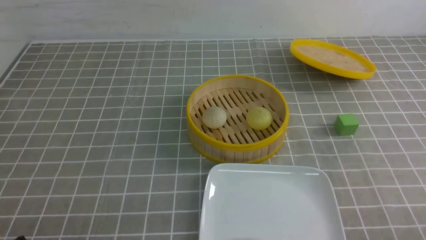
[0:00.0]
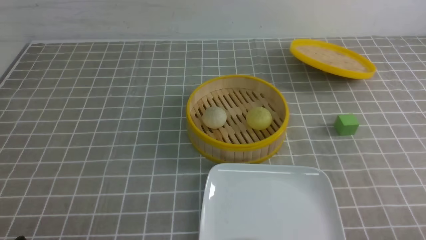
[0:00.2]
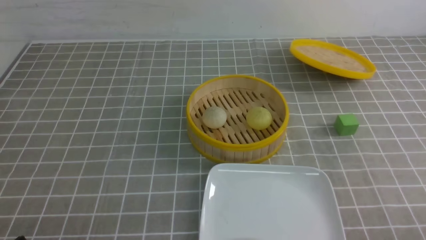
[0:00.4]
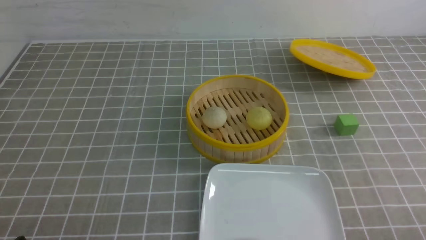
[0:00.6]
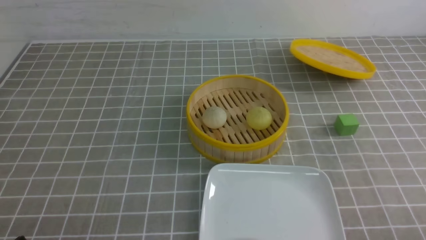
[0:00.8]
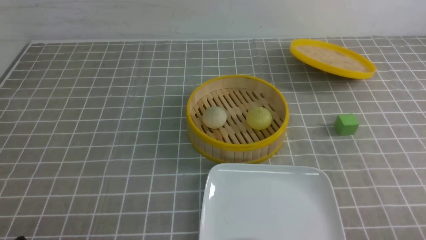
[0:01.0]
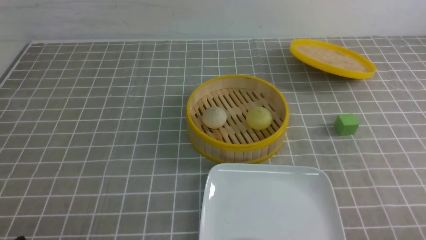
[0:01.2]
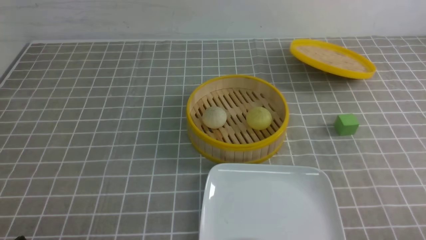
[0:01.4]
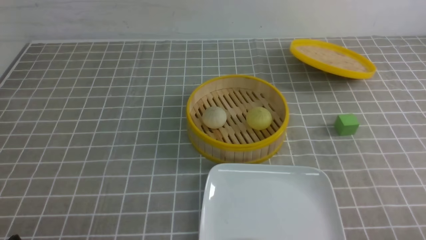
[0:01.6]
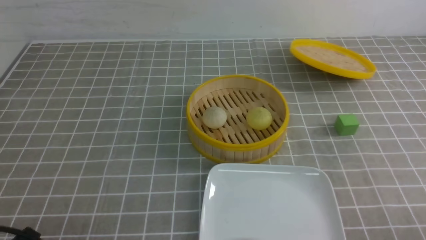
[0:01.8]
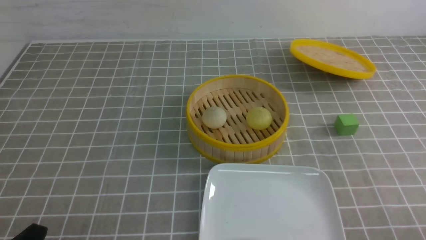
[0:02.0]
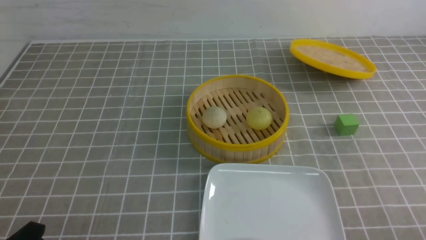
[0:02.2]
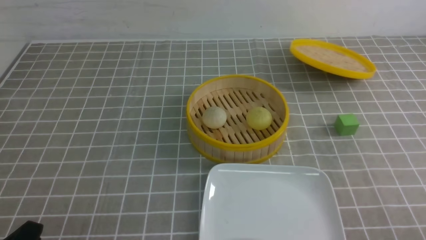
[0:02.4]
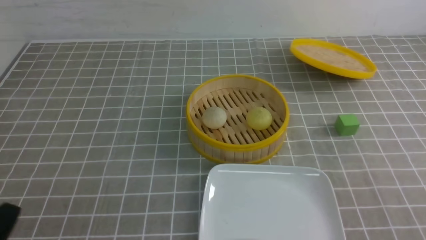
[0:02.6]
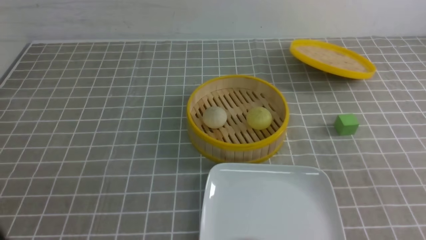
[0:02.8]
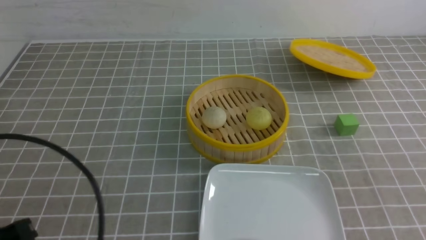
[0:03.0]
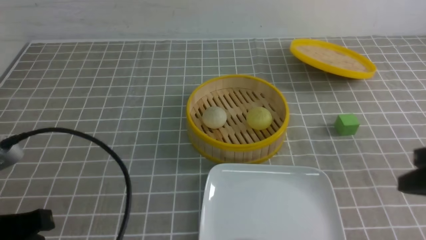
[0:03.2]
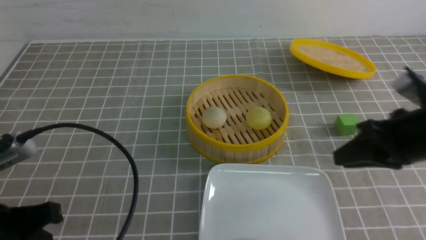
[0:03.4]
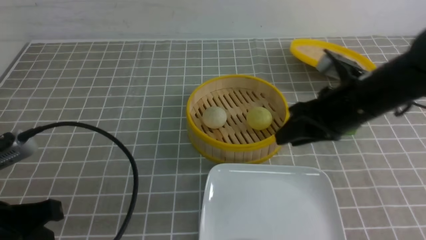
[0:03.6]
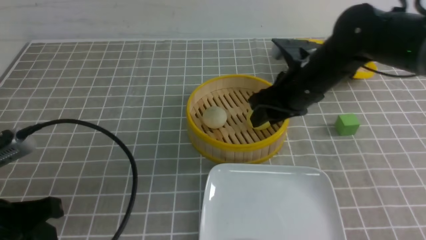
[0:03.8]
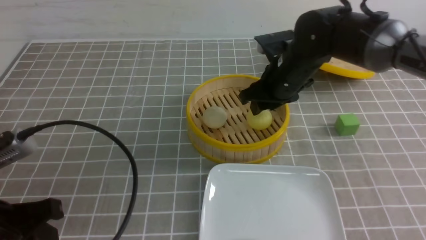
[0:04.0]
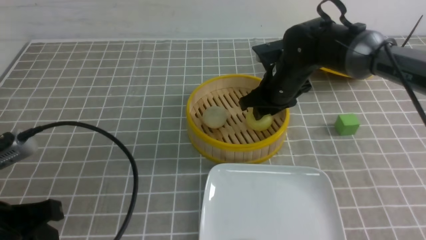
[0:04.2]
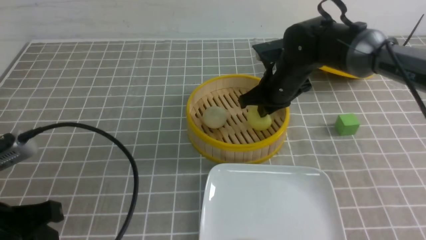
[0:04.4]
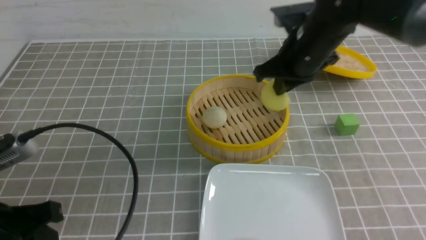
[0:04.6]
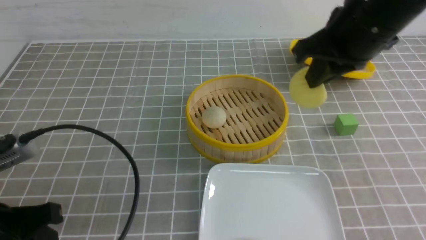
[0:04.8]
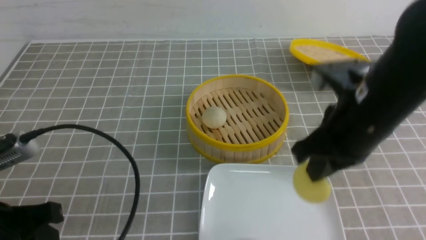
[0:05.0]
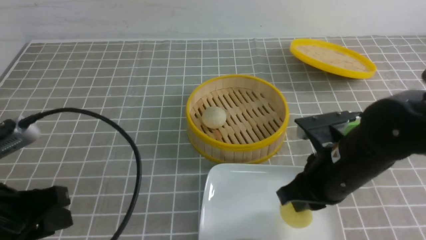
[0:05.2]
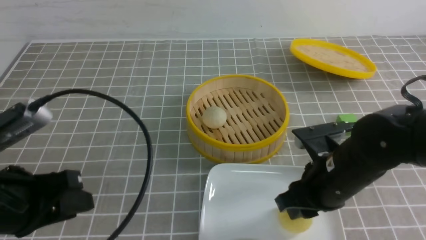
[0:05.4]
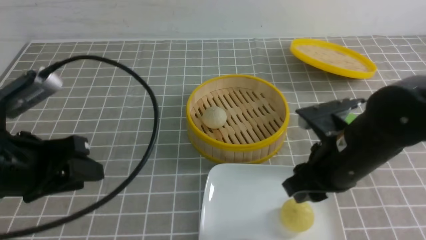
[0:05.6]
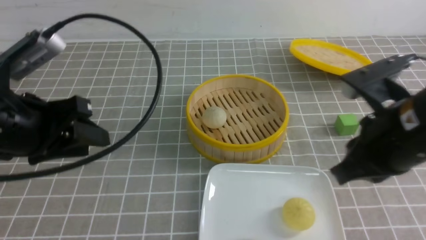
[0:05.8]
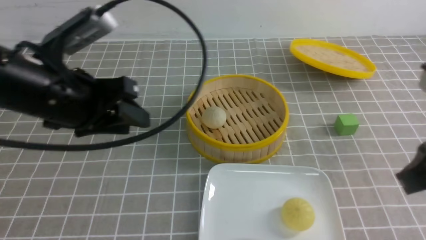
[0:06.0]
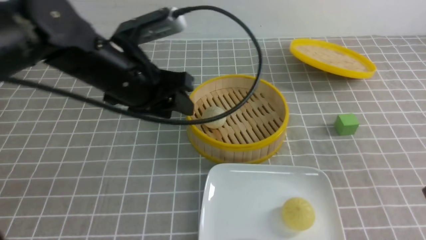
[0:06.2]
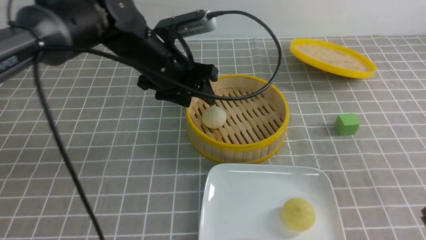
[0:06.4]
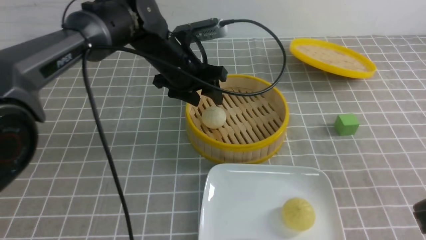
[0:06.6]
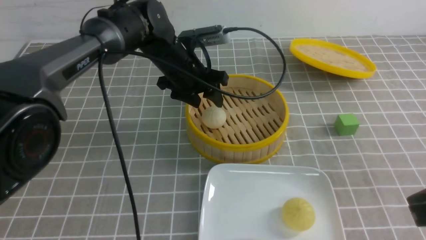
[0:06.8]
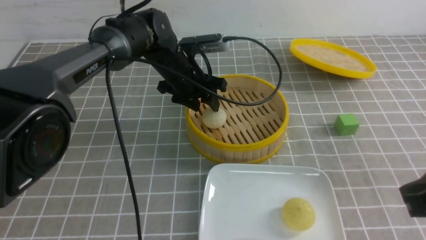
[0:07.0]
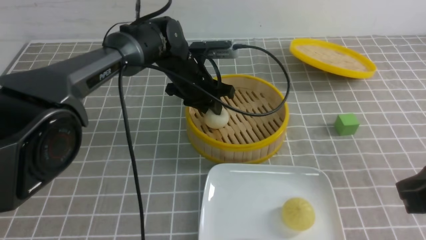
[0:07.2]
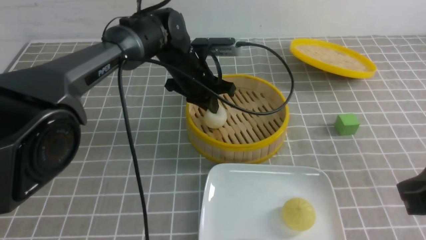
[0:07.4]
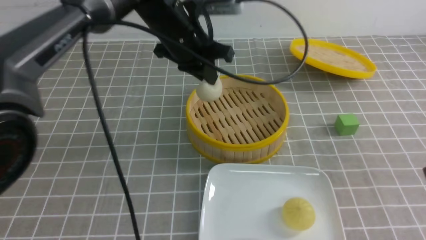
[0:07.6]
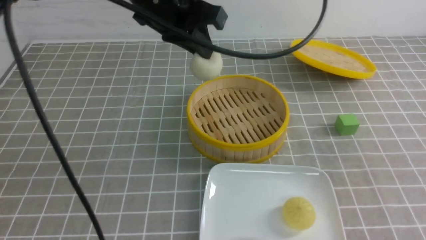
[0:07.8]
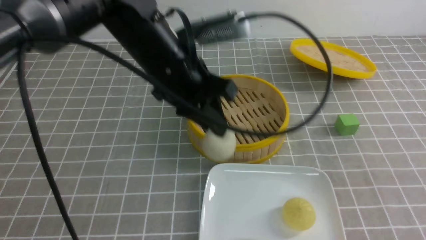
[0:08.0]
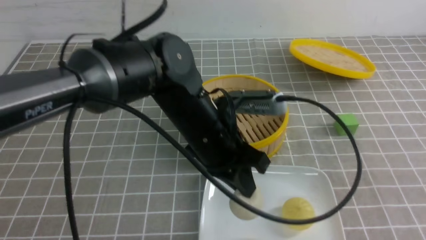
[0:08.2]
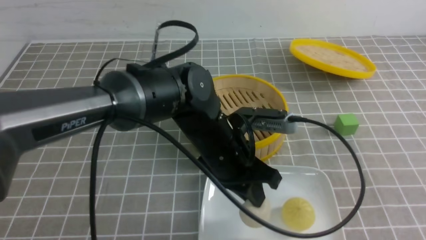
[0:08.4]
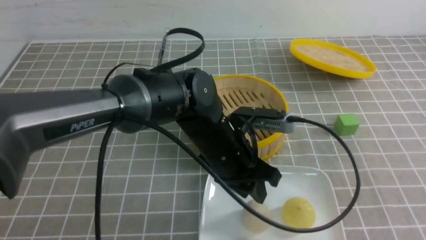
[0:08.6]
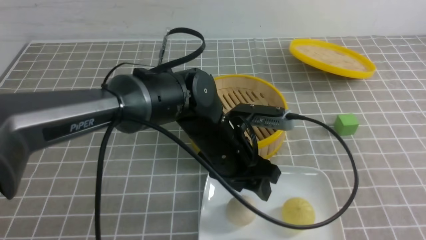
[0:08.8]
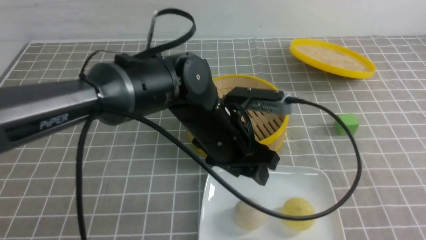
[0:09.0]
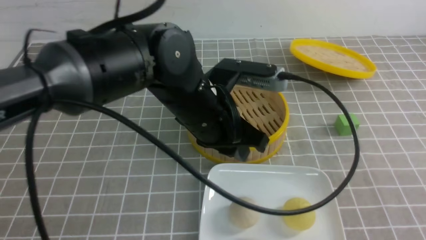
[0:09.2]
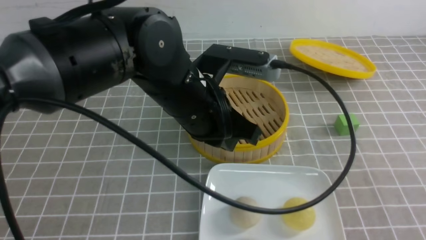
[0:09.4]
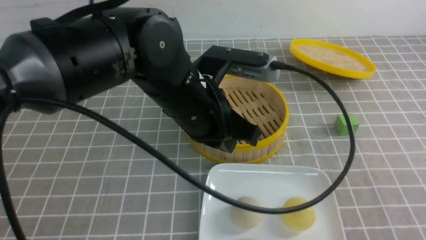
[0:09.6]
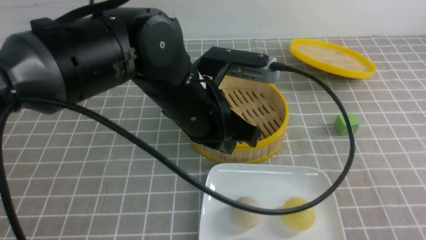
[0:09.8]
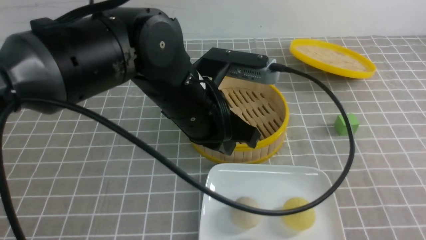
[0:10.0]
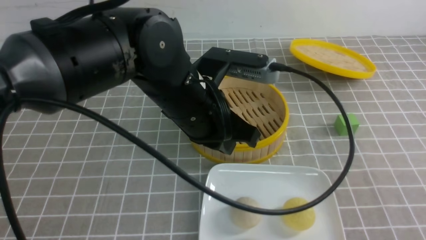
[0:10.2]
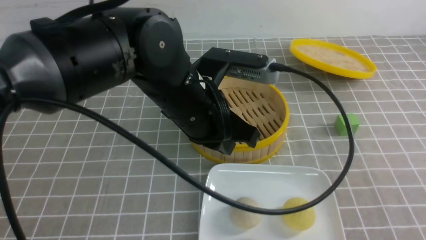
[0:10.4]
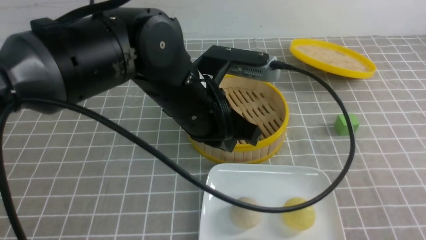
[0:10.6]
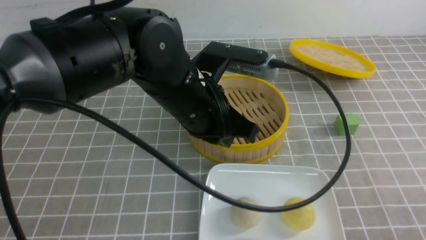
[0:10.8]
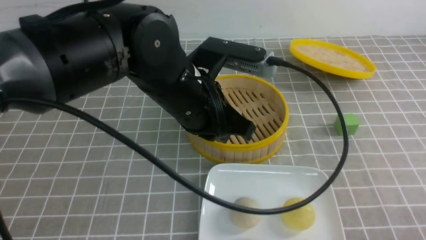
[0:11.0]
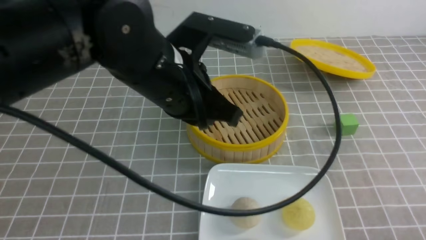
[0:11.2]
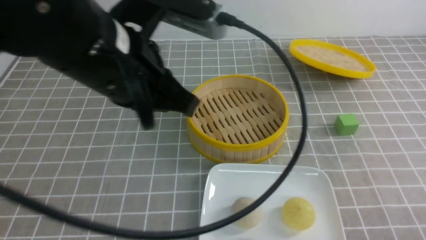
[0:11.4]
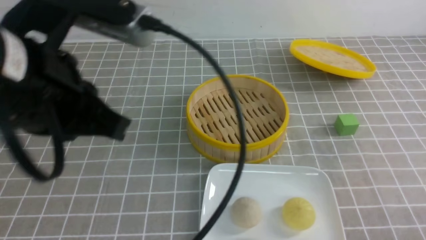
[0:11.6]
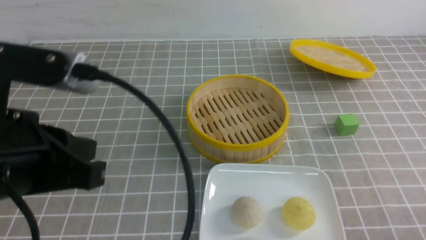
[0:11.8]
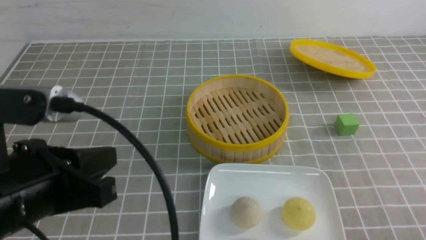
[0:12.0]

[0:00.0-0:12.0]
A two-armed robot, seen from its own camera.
Step, 0:00.0 to 0:04.4: use the right arm to grab the steamed stuffed bun that is closest to it.
Step, 0:04.6 to 0:05.4: use the right arm to put the steamed stuffed bun into the plate.
Step, 0:05.8 to 0:07.4: use the left arm to grab the steamed stuffed bun that is closest to it.
Step, 0:07.6 to 0:08.6: use the left arm to put the steamed stuffed bun into the plate.
0:01.6 to 0:03.0: The left gripper moves upward, about 10 cm, and closes up.
0:03.0 to 0:04.4: The left gripper opens up; the right gripper travels forward and to the left by roughly 35 cm, and opens, then closes once more.
0:04.4 to 0:06.0: The left gripper travels forward, to the right and upward by about 15 cm. The right gripper is displaced backward and to the right by some 25 cm, and opens, then closes once more.
0:06.0 to 0:07.6: The left gripper heads forward and to the right, covering roughly 20 cm, and closes up. Meanwhile the right gripper changes place by approximately 5 cm.
0:07.6 to 0:09.0: The right gripper is displaced backward and to the right by roughly 15 cm. The left gripper travels backward, downward and to the right by about 15 cm, and opens up.
0:09.0 to 0:10.4: The left gripper goes some 5 cm upward, and closes up. Meanwhile the right gripper ends up some 5 cm from where it was.
0:10.4 to 0:12.0: The right gripper travels downward by about 10 cm; the left gripper is displaced to the left and backward by some 20 cm.

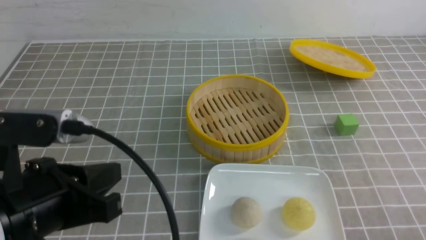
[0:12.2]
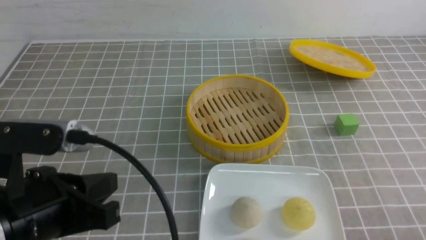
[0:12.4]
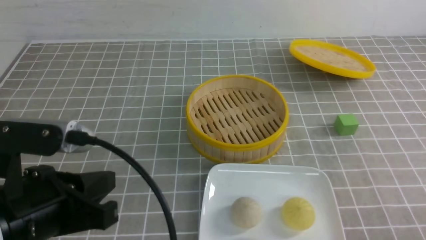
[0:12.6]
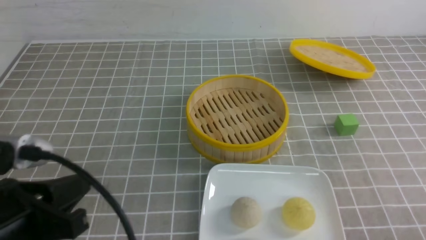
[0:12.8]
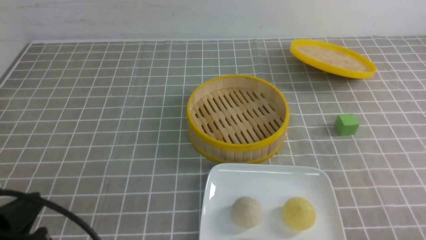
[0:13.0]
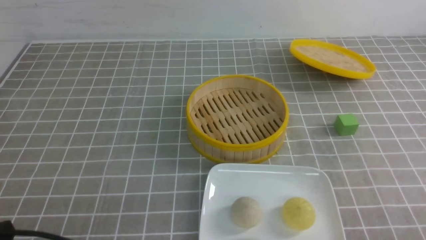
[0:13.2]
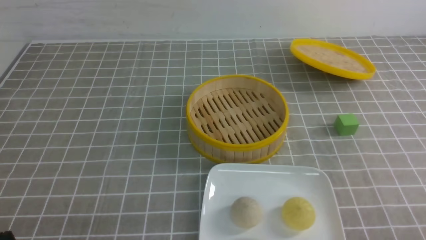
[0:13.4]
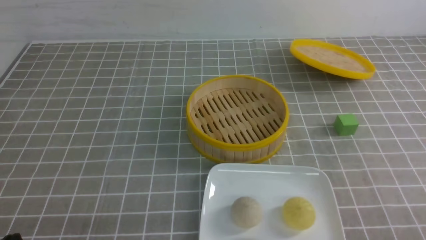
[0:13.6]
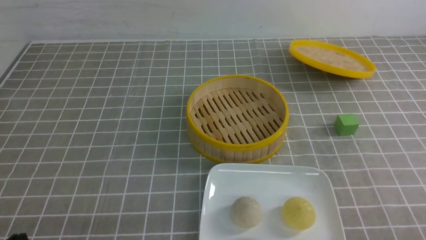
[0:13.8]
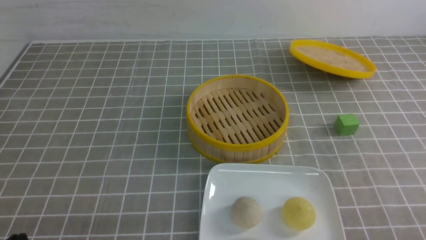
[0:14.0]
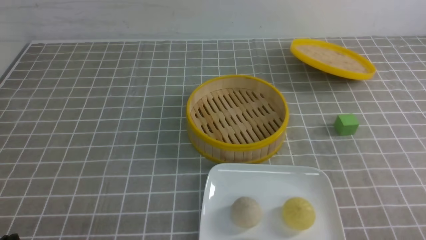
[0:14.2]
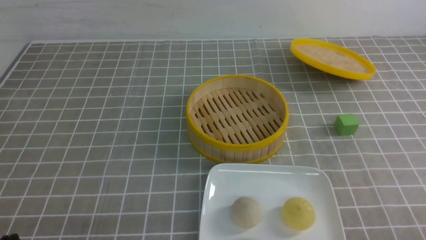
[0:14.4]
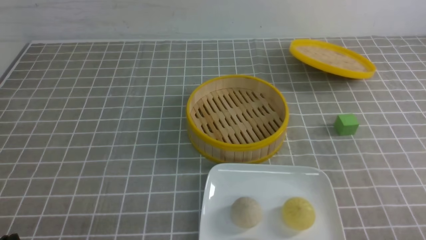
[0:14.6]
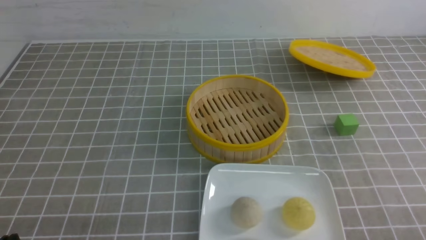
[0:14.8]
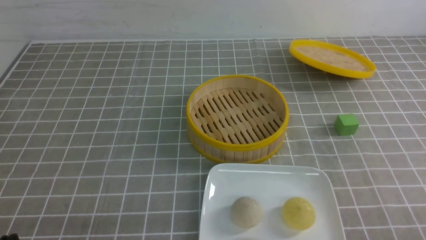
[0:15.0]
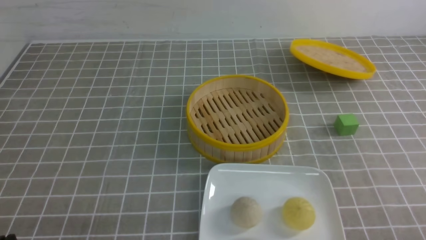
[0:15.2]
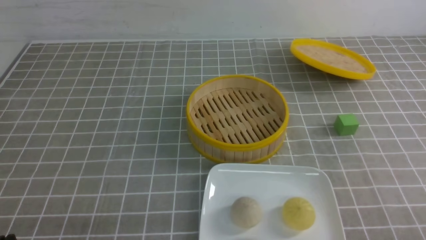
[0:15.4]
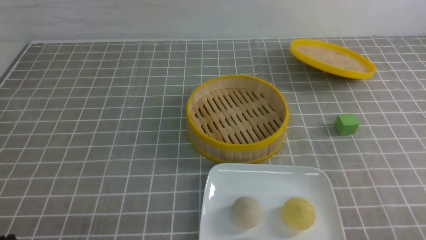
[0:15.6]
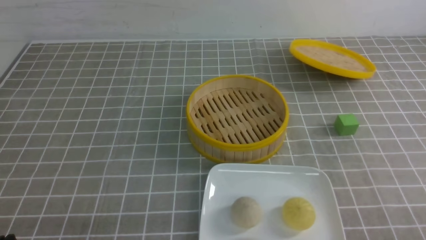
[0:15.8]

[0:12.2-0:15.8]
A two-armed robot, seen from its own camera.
0:12.2 to 0:14.0: The left gripper heads downward, to the left and backward, covering roughly 15 cm.
0:14.0 to 0:15.8: Both grippers stay about where they are.
